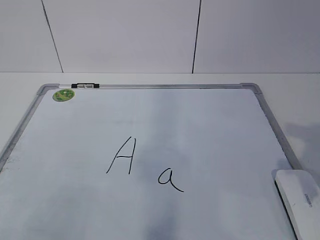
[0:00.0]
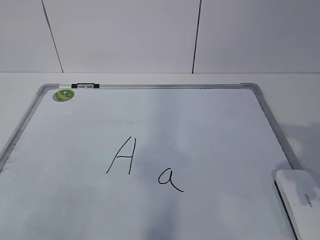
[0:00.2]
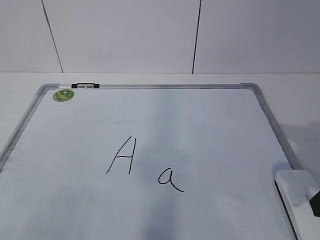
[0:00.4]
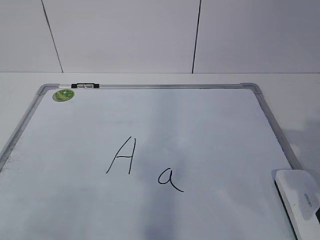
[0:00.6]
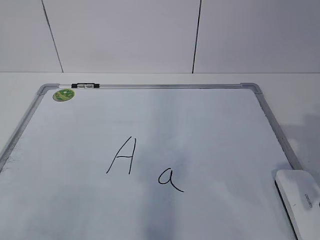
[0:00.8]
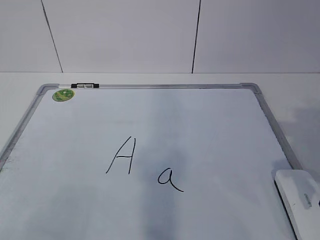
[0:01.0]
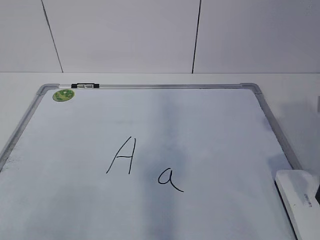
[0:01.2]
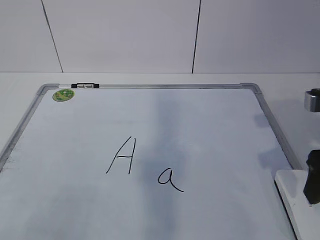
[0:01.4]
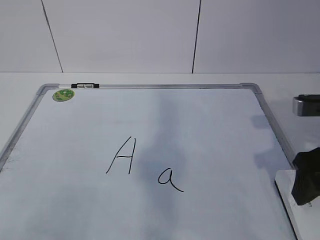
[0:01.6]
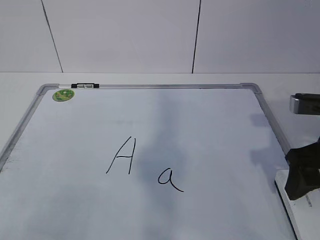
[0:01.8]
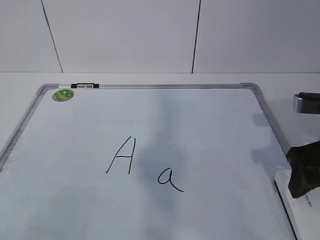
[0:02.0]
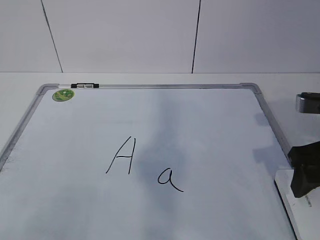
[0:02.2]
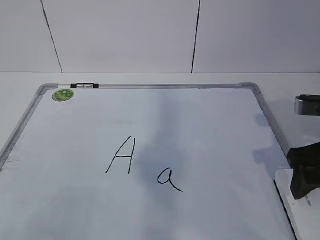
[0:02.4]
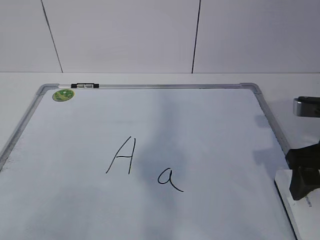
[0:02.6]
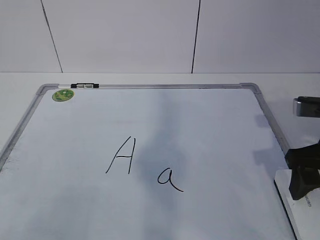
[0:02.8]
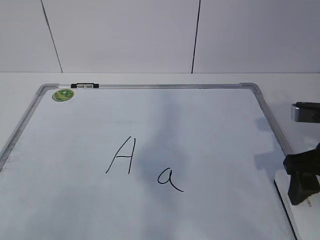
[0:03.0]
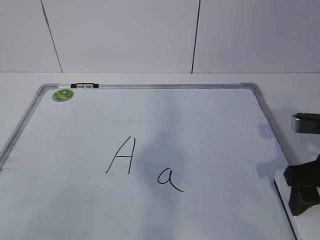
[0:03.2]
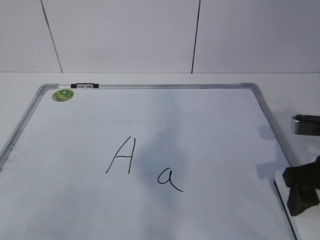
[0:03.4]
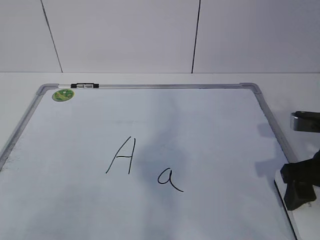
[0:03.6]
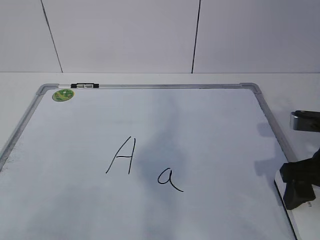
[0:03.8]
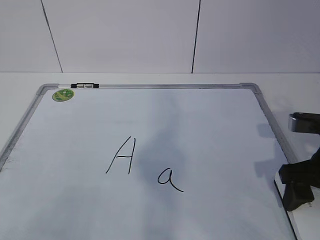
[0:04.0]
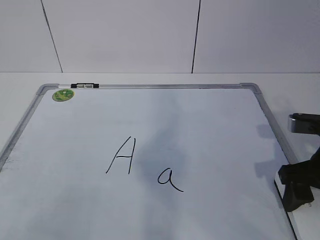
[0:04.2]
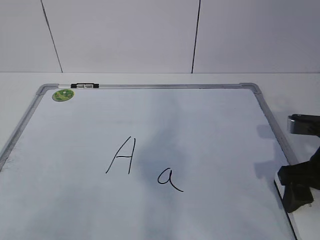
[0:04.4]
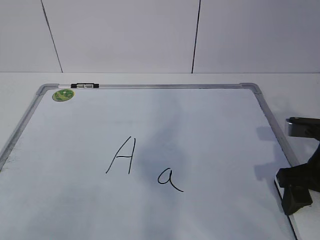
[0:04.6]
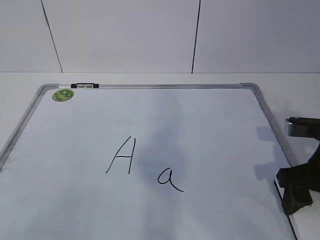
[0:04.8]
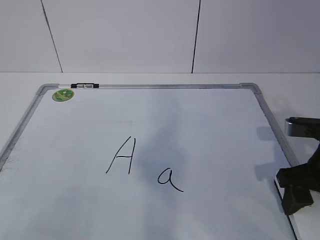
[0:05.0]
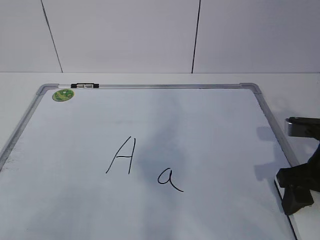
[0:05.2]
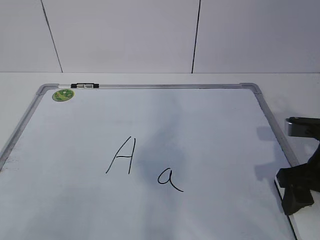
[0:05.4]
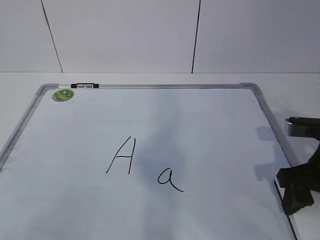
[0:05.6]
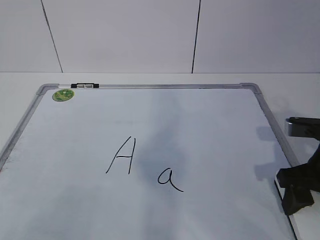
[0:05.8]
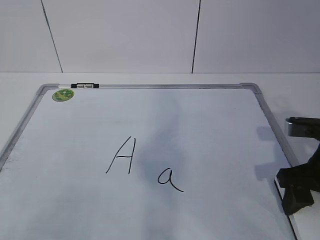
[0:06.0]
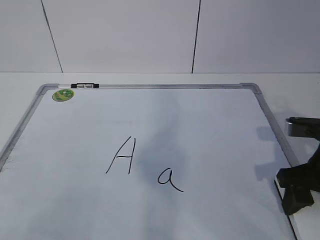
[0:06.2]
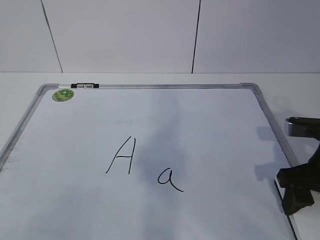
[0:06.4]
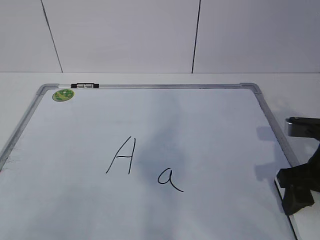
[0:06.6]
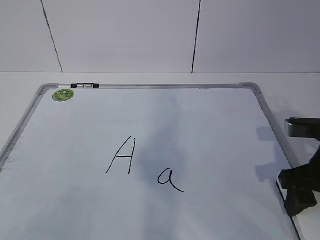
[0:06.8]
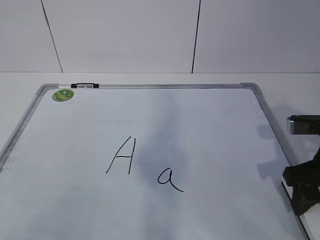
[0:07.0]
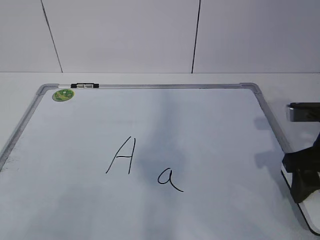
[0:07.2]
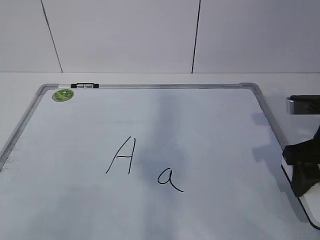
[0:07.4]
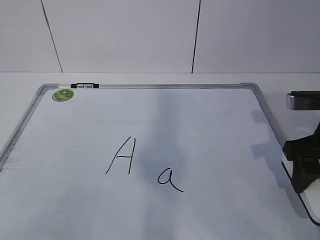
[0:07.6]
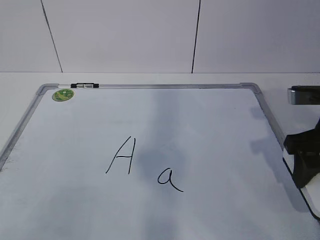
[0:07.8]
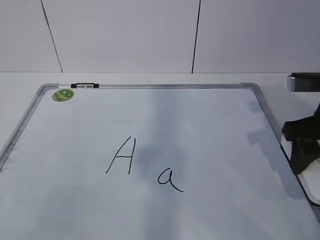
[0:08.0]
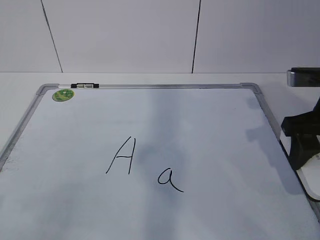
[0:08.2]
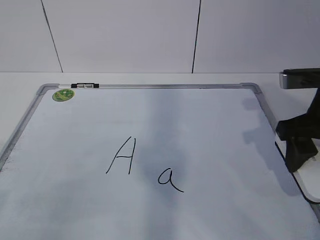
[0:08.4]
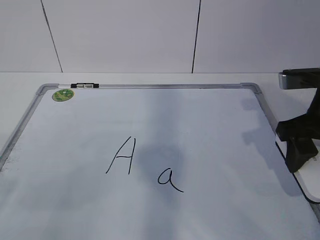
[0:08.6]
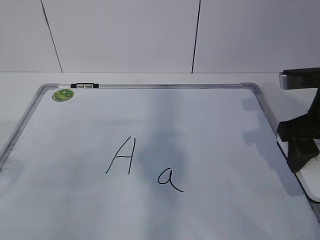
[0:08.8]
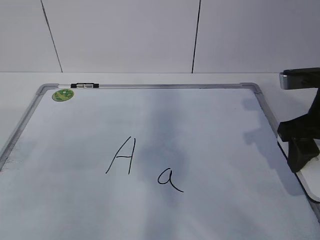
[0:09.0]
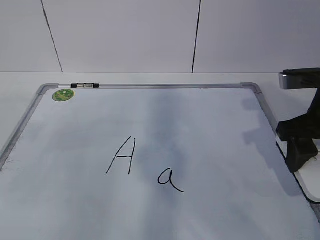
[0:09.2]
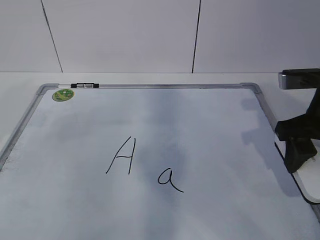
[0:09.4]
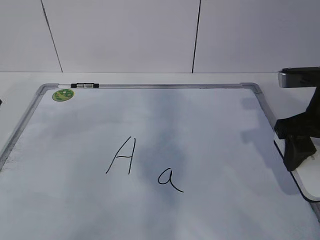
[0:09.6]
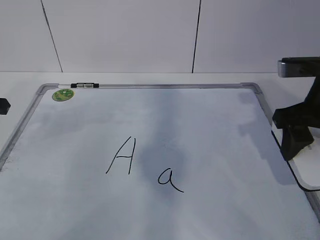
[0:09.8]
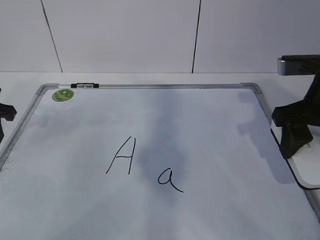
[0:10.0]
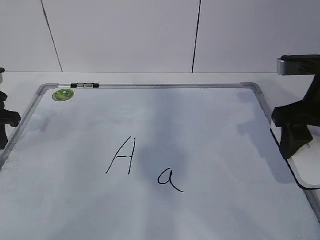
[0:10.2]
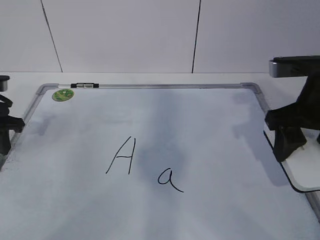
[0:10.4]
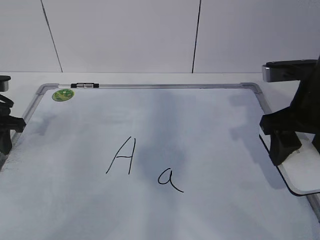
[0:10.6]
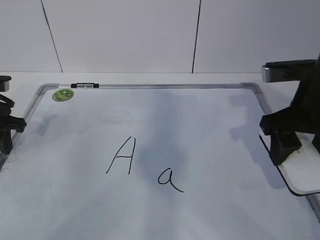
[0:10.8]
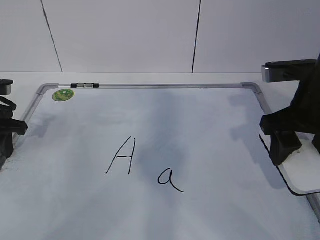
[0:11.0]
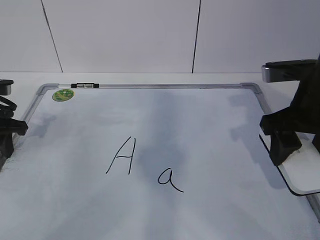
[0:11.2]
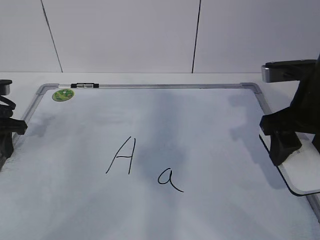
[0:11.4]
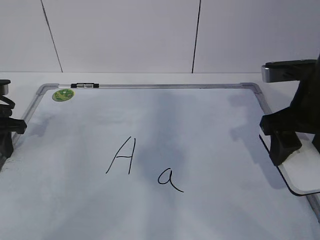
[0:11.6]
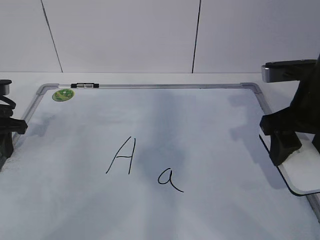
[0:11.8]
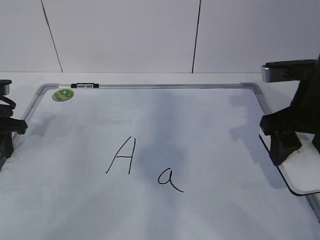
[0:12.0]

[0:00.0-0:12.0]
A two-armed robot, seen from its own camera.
Task of the whole recording: pick up the eraser on the blackboard and erase the letter "a".
Step, 0:00.0 to 0:04.6: Grab the eraser with your right hand.
Step, 0:04.8 to 0:11.4: Hold the drawing board steady with your left hand.
0:00.0 to 0:01.6: The right gripper moves forward, about 5 cm, and opens its fingers.
0:01.6 to 0:04.4: There are only small adjustments of the grippers.
0:04.4 to 0:06.0: The right gripper closes up.
0:06.0 to 0:07.6: The grippers stay close to where they were, moving slightly.
0:09.0 to 0:10.4: The left gripper is displaced forward and downward by roughly 20 cm.
0:10.4 to 0:12.0: The grippers stay close to where they were, moving slightly.

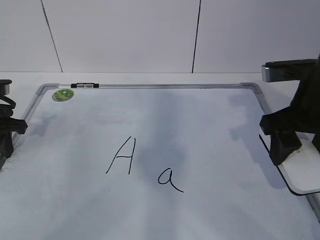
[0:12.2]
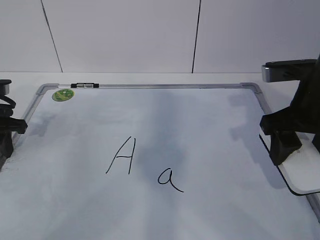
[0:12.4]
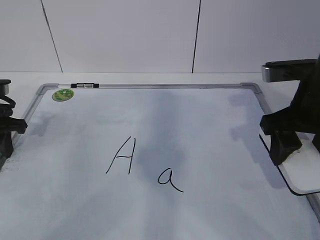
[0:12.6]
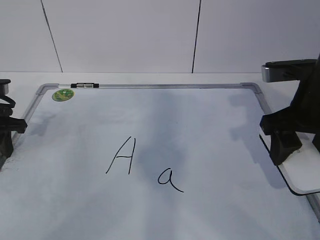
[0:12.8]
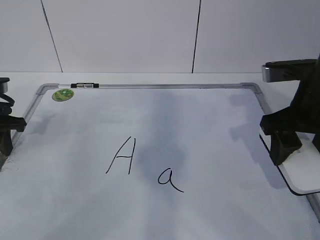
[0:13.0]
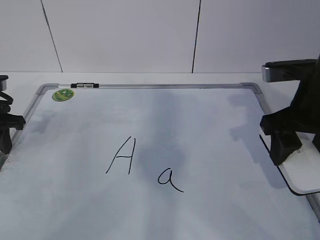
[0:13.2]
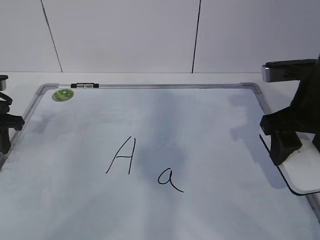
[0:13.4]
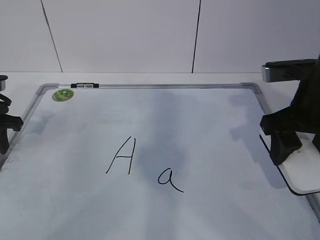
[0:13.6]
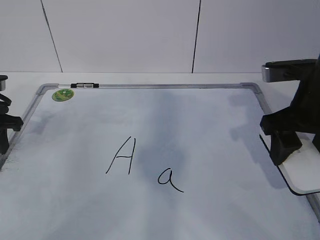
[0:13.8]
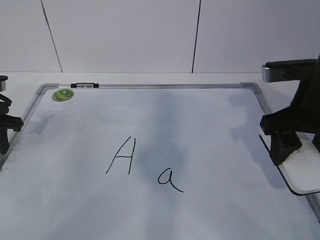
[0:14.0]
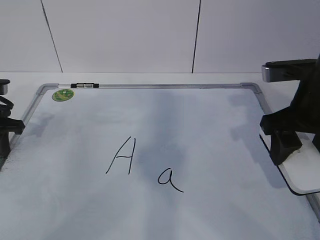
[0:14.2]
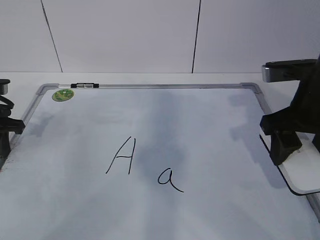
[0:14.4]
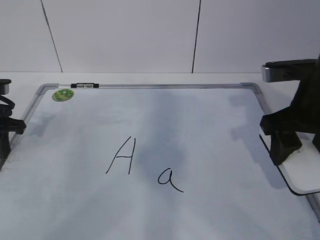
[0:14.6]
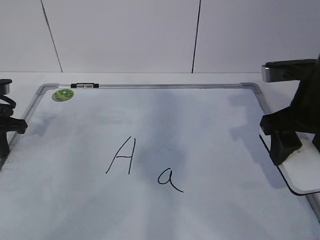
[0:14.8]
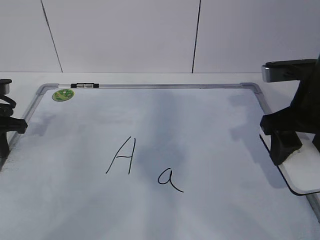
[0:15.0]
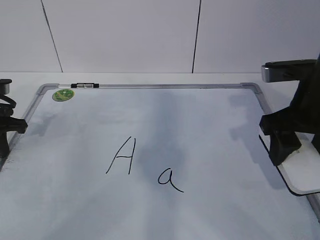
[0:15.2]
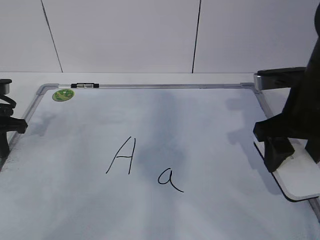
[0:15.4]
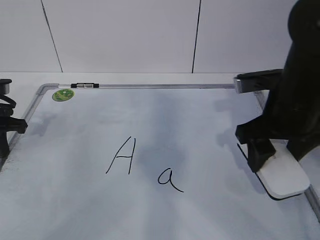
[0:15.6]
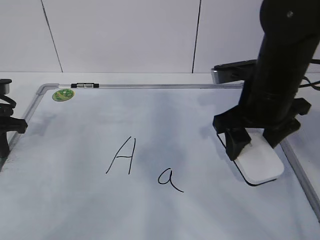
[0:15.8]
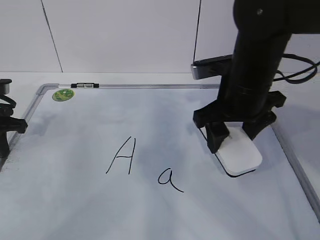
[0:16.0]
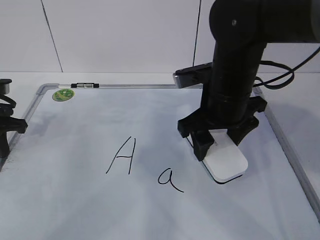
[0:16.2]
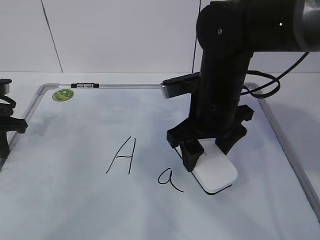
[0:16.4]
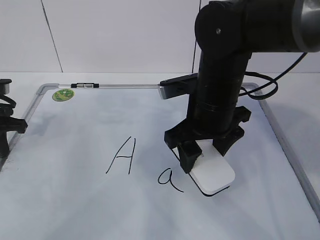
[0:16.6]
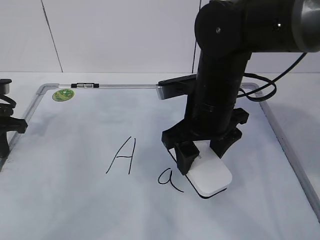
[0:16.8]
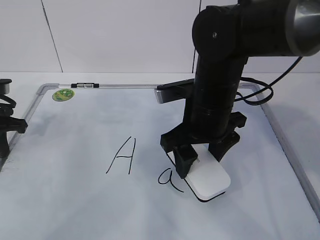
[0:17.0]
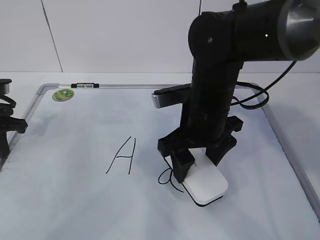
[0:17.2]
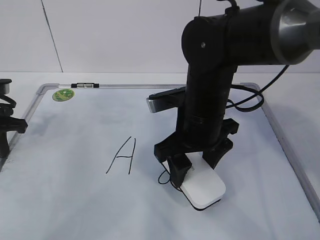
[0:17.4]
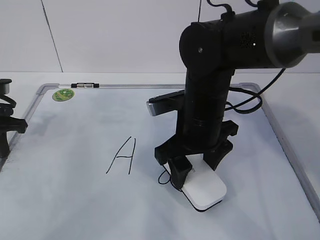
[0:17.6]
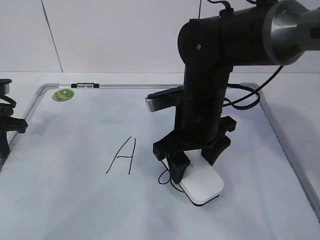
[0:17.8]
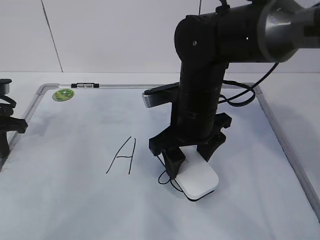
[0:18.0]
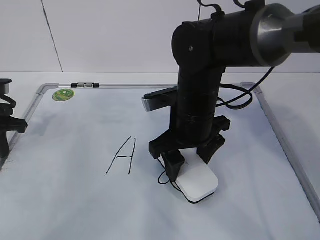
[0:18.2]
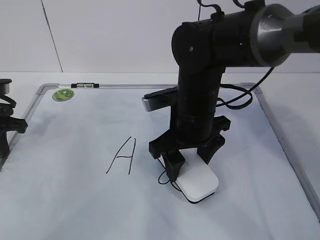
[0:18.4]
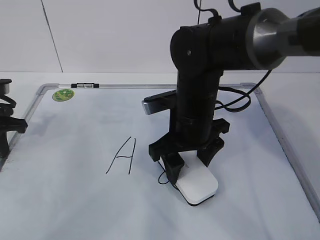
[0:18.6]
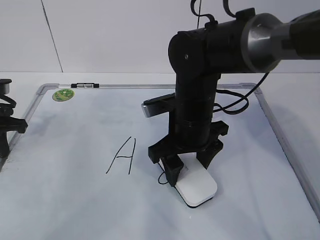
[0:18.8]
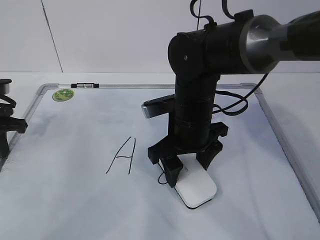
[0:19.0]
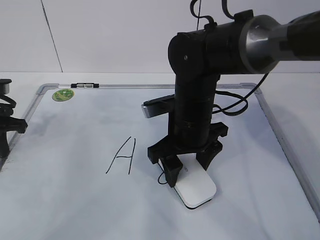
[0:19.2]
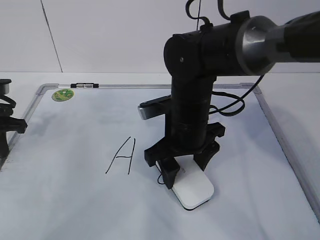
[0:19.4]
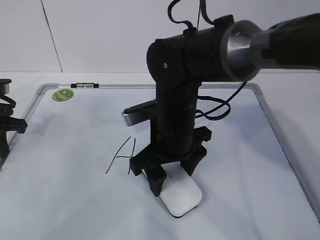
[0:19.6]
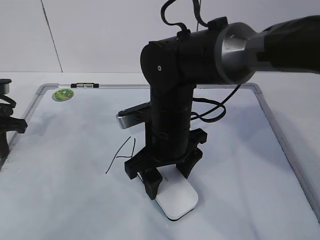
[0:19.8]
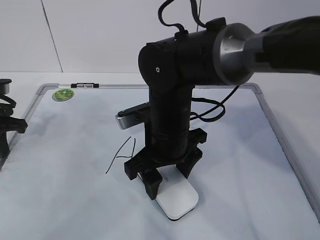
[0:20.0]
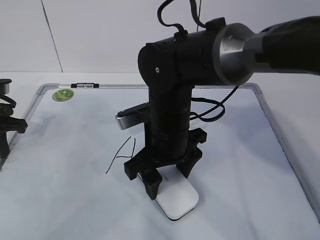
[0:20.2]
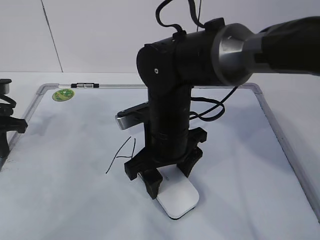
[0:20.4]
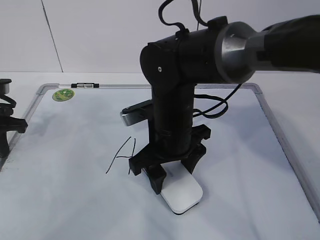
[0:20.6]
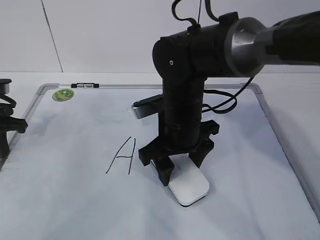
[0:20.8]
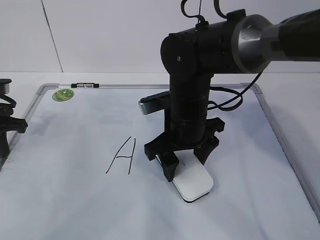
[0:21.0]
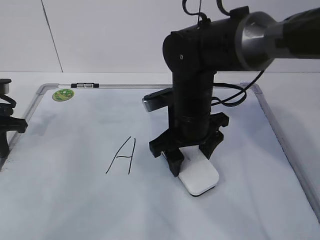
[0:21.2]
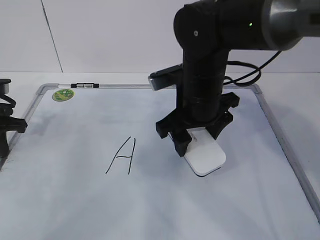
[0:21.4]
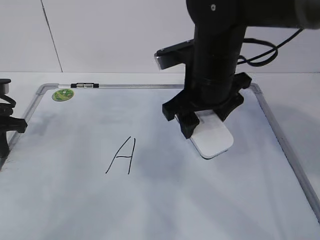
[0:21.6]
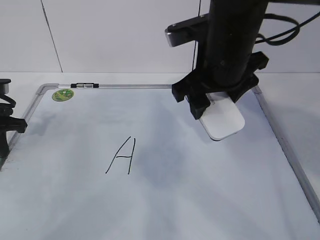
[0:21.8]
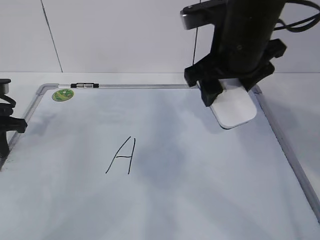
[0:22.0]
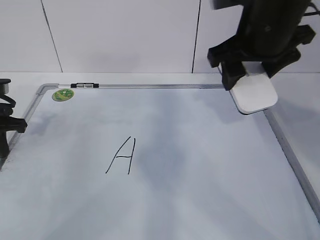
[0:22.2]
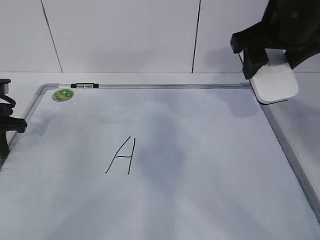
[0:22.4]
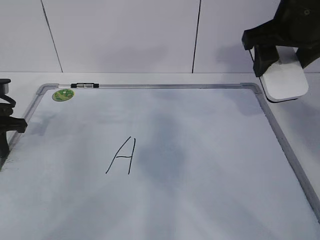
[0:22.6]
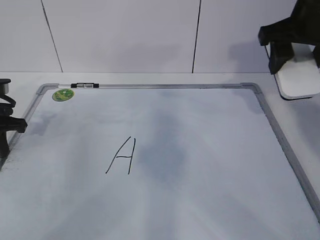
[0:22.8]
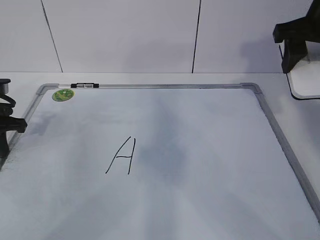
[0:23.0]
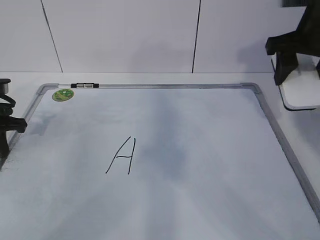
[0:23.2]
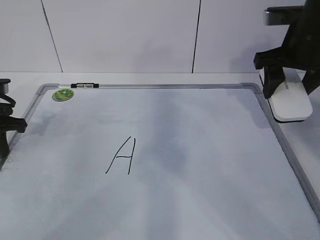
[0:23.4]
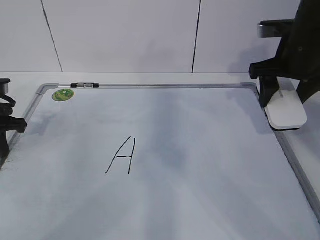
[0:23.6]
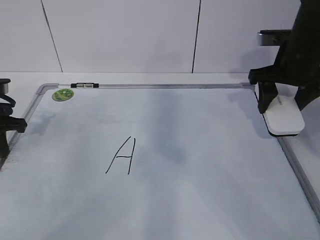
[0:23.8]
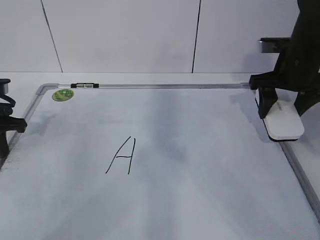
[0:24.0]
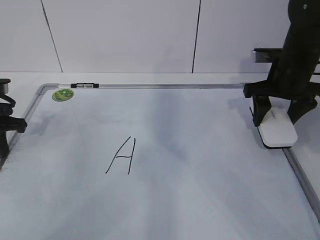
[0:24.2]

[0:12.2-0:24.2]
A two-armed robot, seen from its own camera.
Task of the whole recording: pick up the eraser on the blackboard and erase the letter "a".
Step, 0:12.2 to 0:16.8: Erase the letter a with your right hand.
Step, 0:17.0 to 0:21.2: Put down the eraser with your right hand.
0:12.2 to 0:13.8: Both grippers stay put.
0:13.8 to 0:15.2: The left gripper closes up.
0:15.2 to 0:16.6: The right gripper shifts about 15 cm to the left.
0:16.6 to 0:18.2: The grippers move only a little.
0:18.2 to 0:21.2: The grippers make only small movements.
0:21.2 to 0:22.6: The right gripper moves upward and to the right, roughly 20 cm.
0:22.6 to 0:24.2: The right gripper travels downward and forward by some 15 cm.
